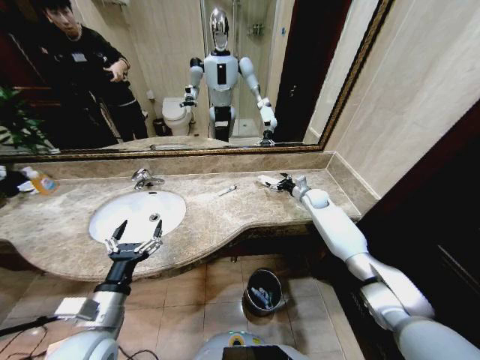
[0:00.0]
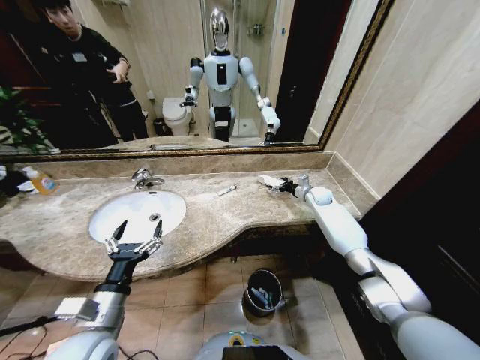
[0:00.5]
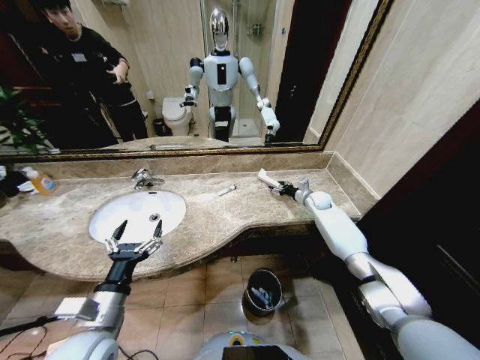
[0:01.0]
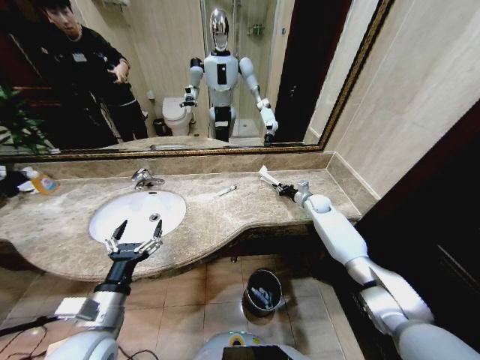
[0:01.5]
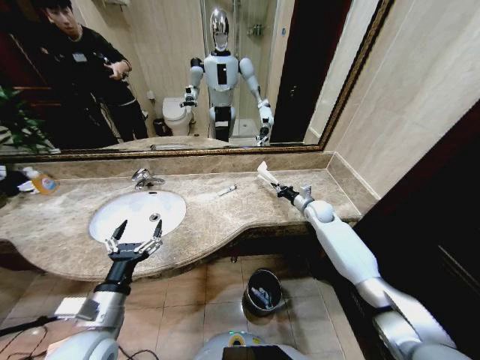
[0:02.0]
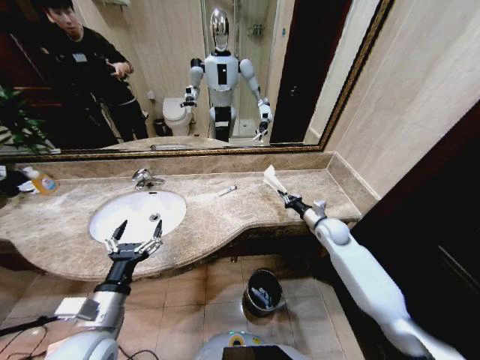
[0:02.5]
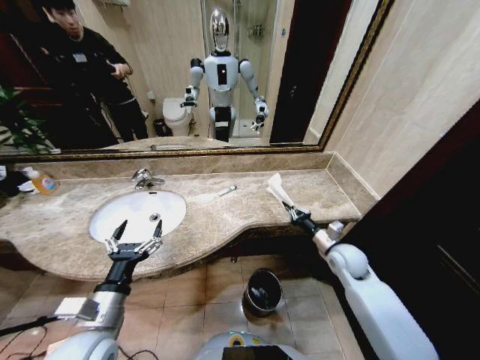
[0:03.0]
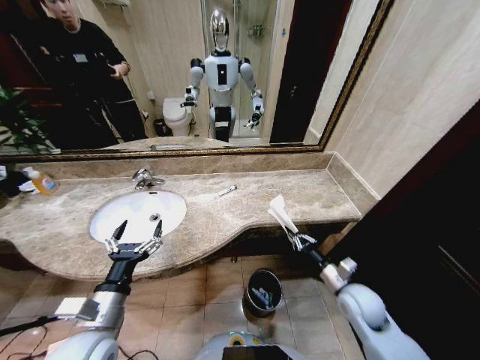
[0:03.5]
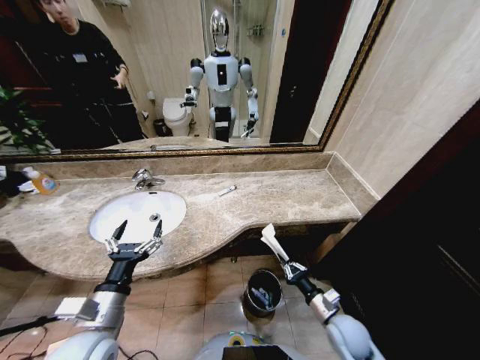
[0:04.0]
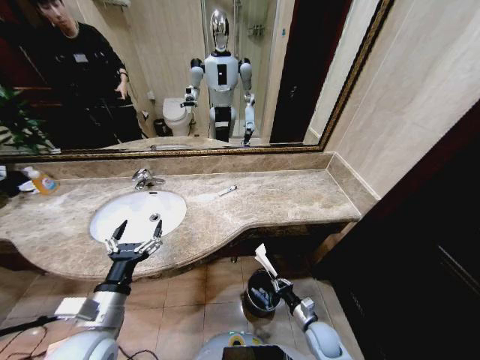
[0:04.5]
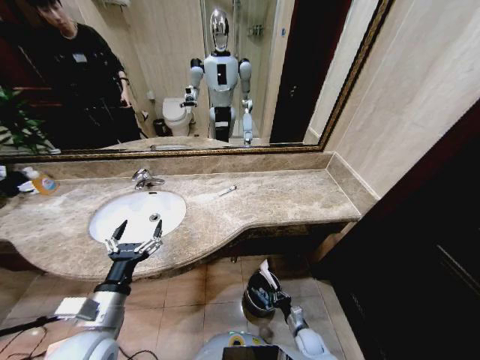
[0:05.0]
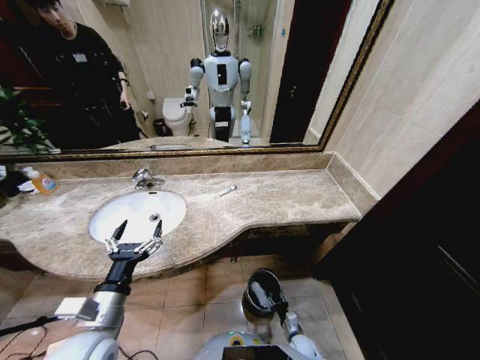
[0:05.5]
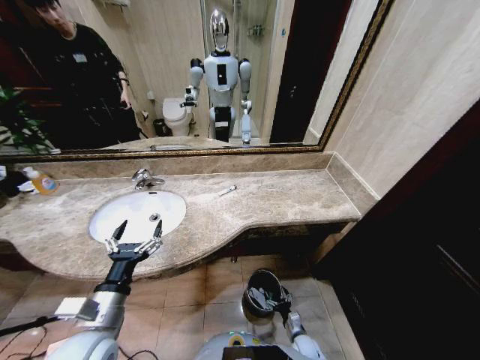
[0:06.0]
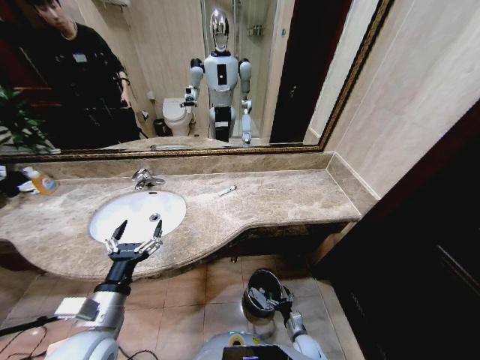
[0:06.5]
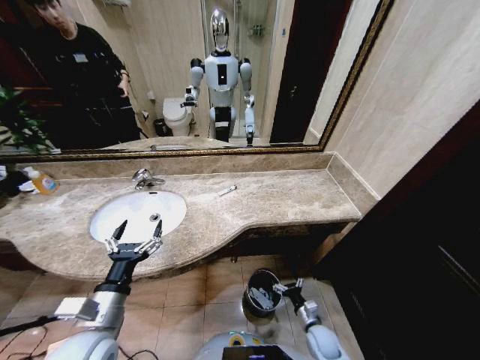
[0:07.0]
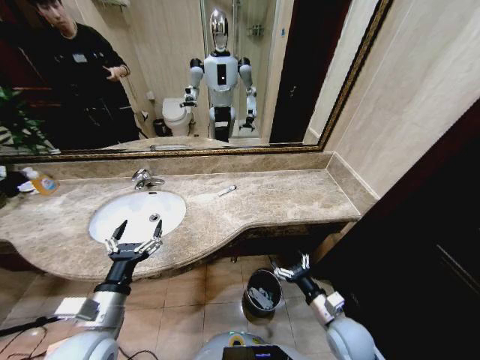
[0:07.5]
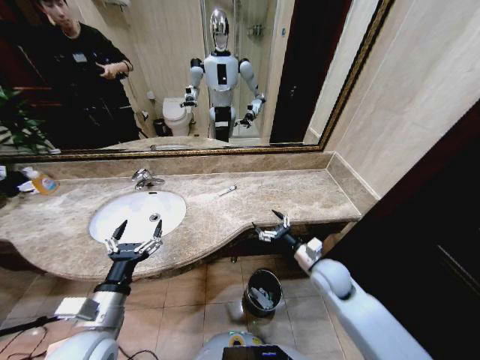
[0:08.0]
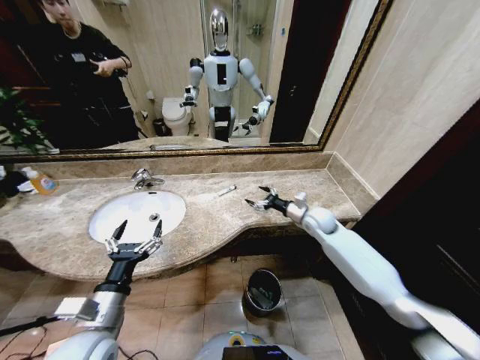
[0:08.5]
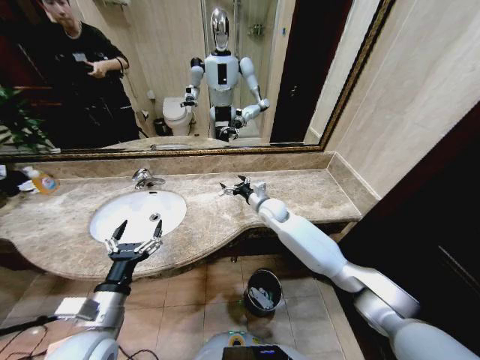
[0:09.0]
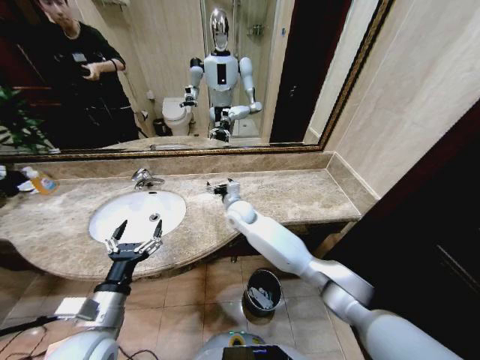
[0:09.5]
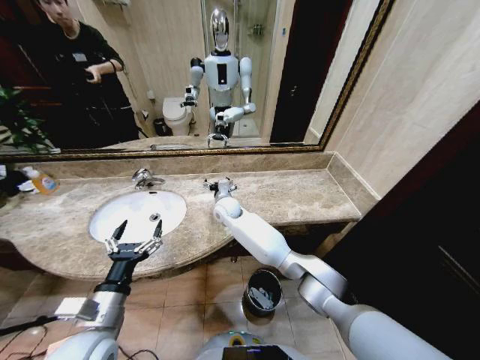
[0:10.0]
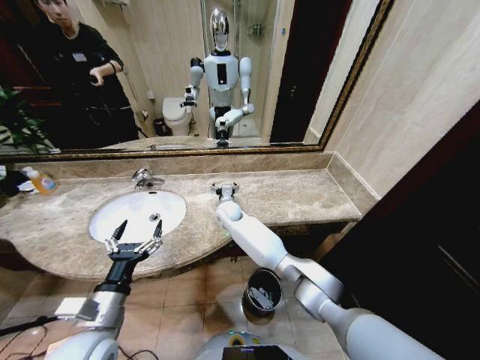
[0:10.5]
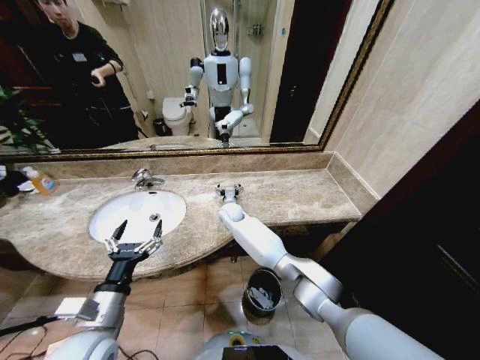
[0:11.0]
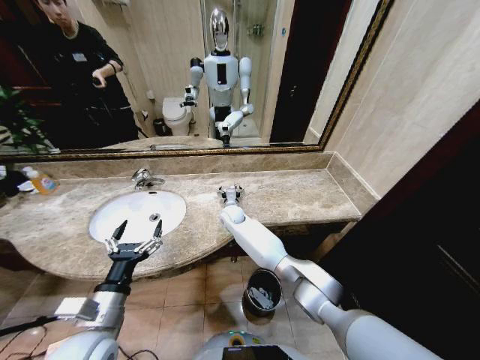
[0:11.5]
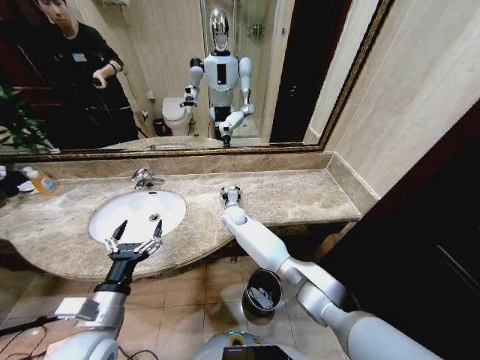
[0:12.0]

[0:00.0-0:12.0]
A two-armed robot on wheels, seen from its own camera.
Task of the whole recording: Pick up the trash from the sink and place it in the trash bin.
0:00.0 to 0:02.0: The right gripper goes about 5 cm backward, and closes.
0:02.0 to 0:04.0: The right gripper heads backward, covering about 35 cm.
0:04.0 to 0:06.0: The right gripper travels downward by some 25 cm, and opens up.
0:06.0 to 0:08.0: The right gripper travels upward by about 35 cm.
0:08.0 to 0:10.0: The right gripper heads to the left and forward, covering roughly 35 cm.
0:10.0 to 0:12.0: The right gripper is displaced downward by some 5 cm.

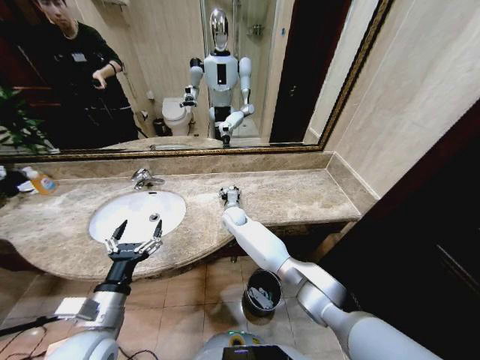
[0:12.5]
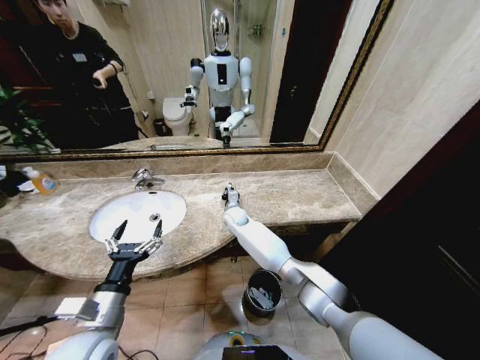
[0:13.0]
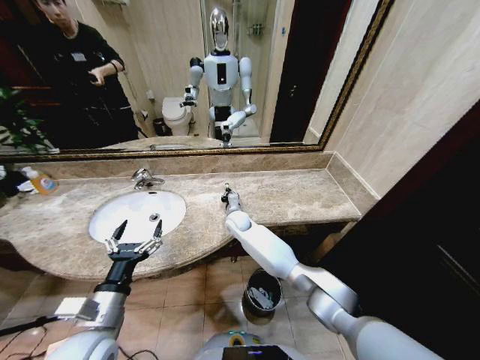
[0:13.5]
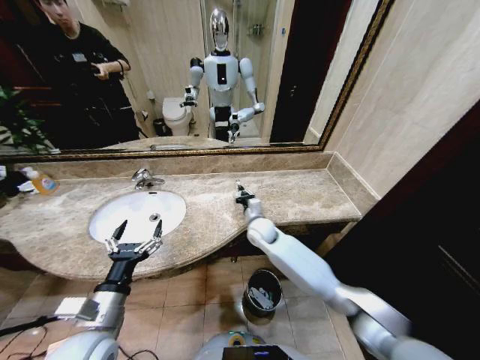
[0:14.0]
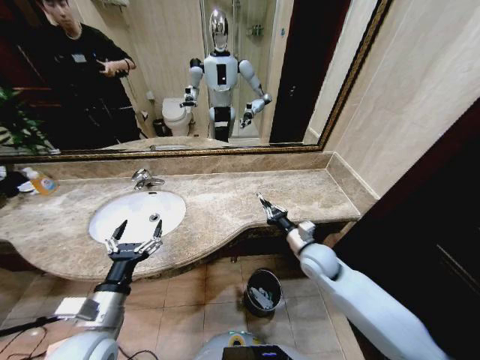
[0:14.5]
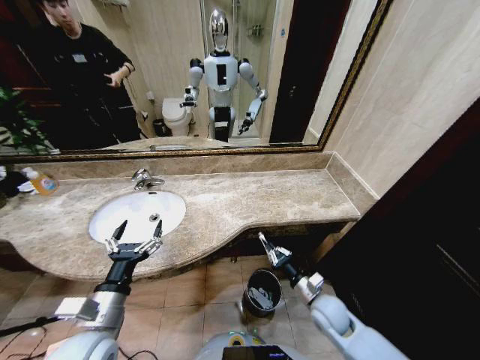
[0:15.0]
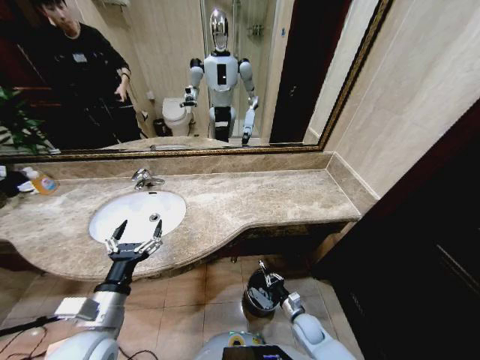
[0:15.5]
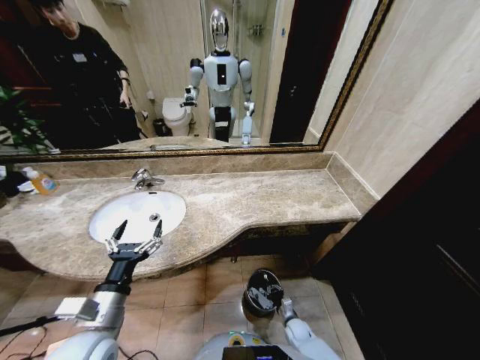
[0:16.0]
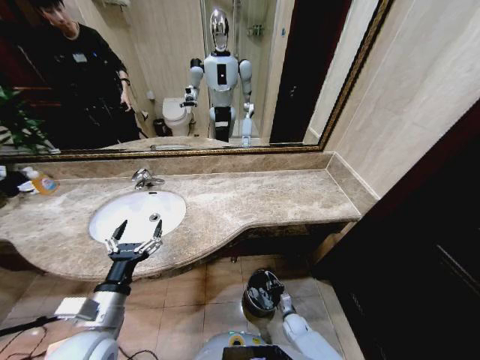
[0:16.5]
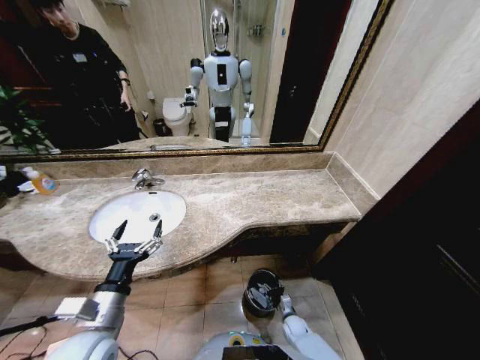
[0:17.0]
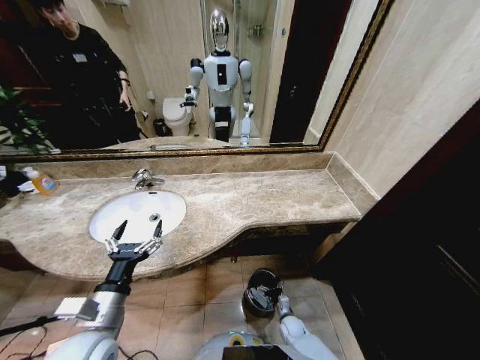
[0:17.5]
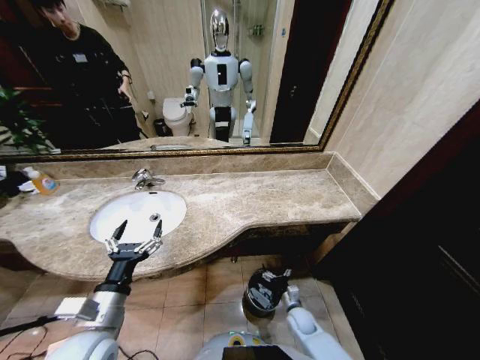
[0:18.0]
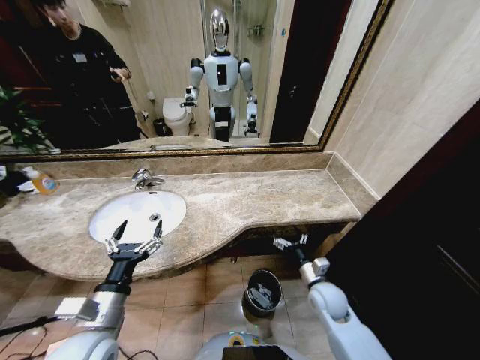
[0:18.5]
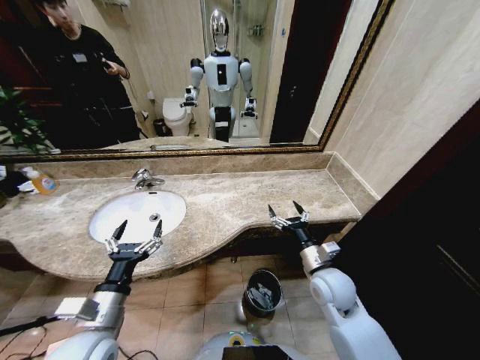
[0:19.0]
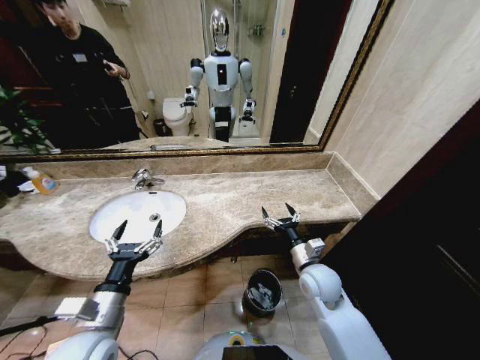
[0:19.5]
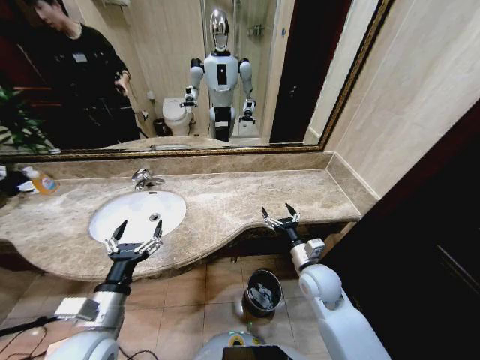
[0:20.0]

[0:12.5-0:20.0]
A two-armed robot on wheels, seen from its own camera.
Task of the whole recording: Pick up the trash from the sink and place it in the trash bin.
0:12.5 to 0:14.5: The right gripper moves to the right and backward, some 30 cm, and closes its fingers.
0:14.5 to 0:16.5: The right gripper travels downward by approximately 35 cm.
0:16.5 to 0:18.0: The right gripper shifts some 10 cm upward, and opens its fingers.
0:18.0 to 0:20.0: The right gripper travels upward by approximately 30 cm.
